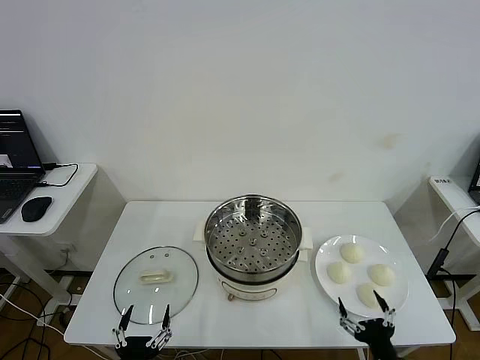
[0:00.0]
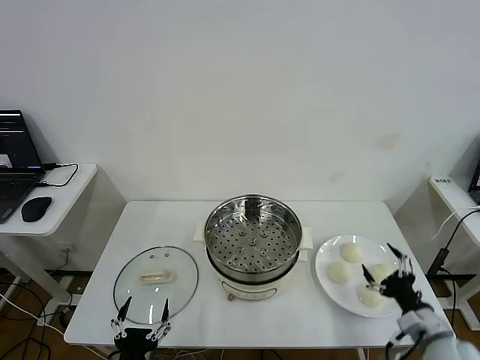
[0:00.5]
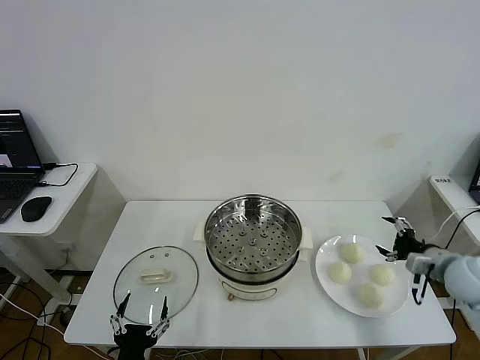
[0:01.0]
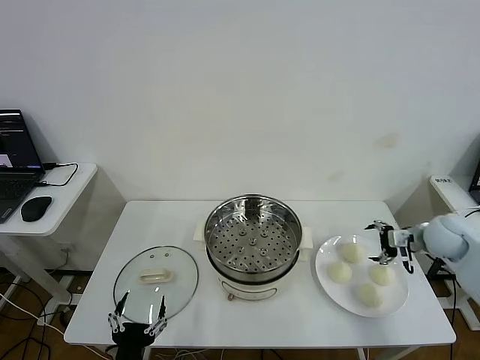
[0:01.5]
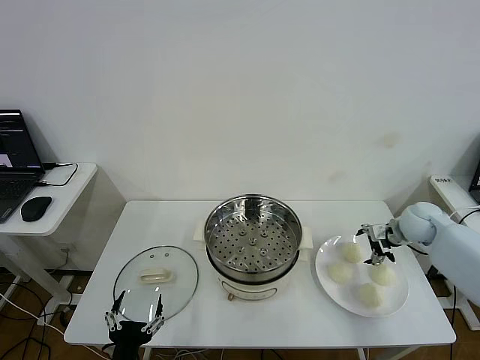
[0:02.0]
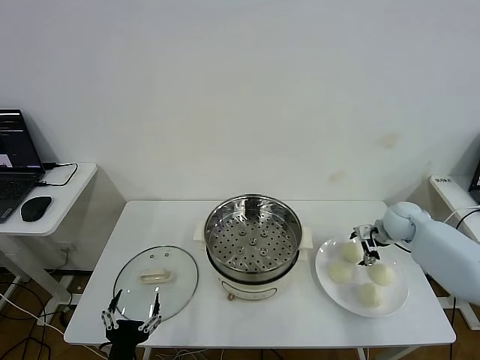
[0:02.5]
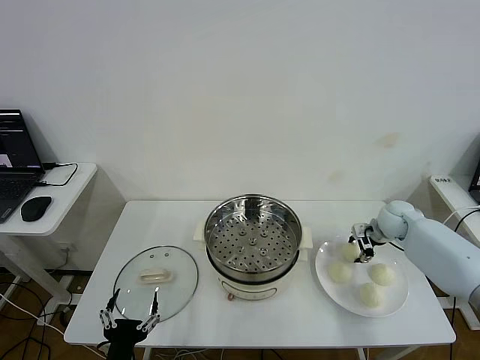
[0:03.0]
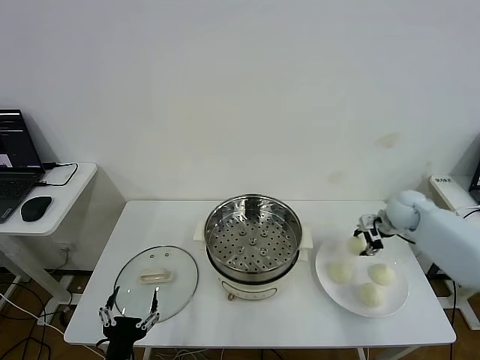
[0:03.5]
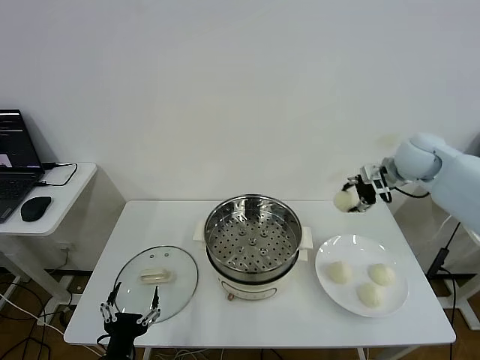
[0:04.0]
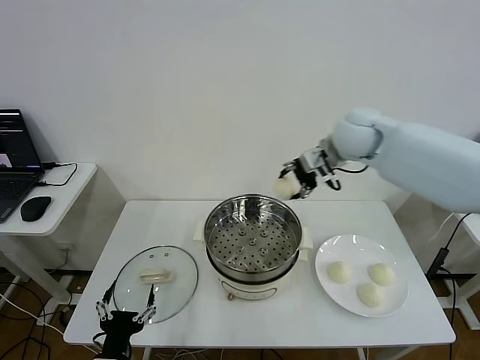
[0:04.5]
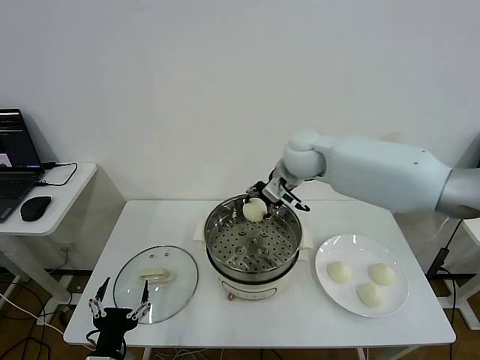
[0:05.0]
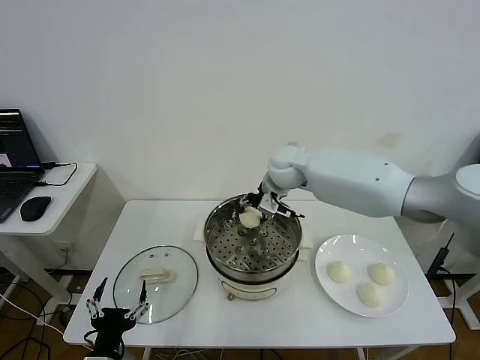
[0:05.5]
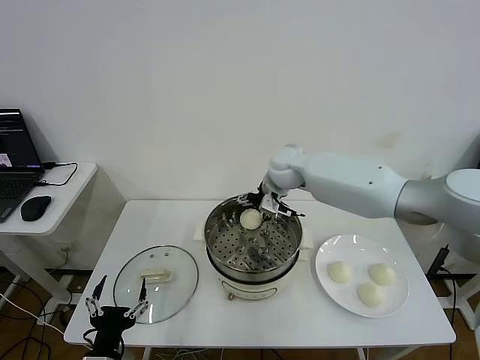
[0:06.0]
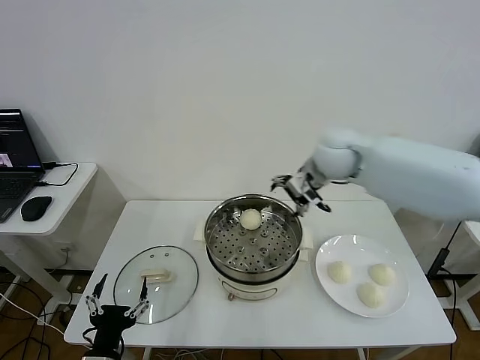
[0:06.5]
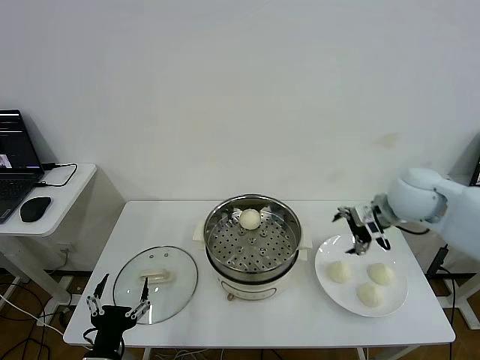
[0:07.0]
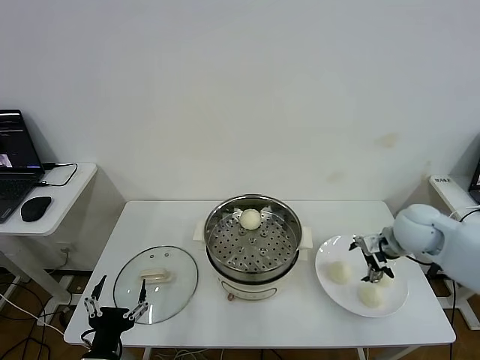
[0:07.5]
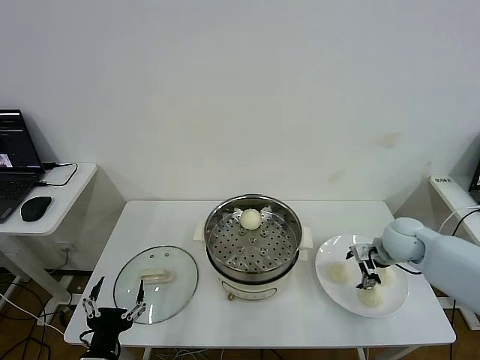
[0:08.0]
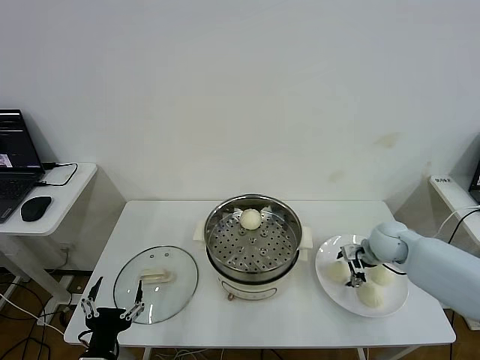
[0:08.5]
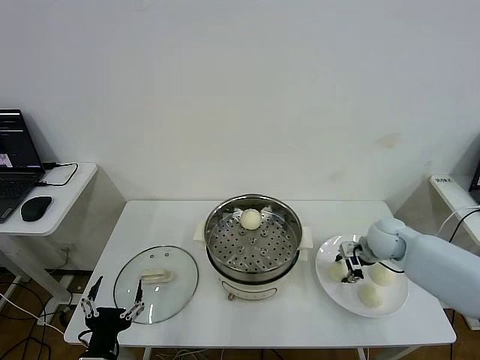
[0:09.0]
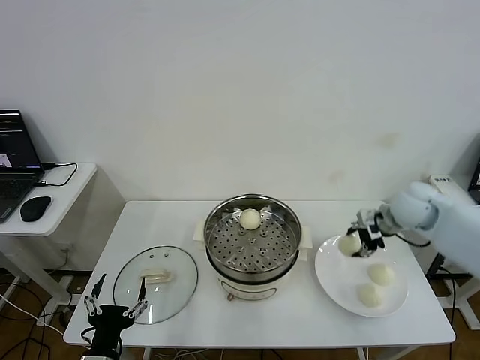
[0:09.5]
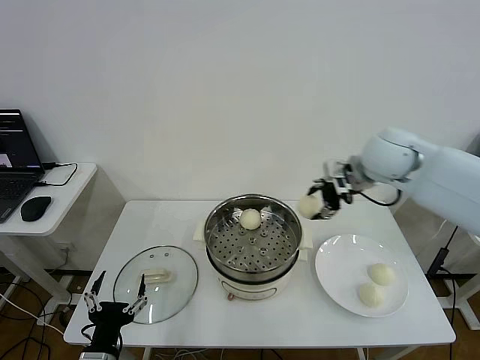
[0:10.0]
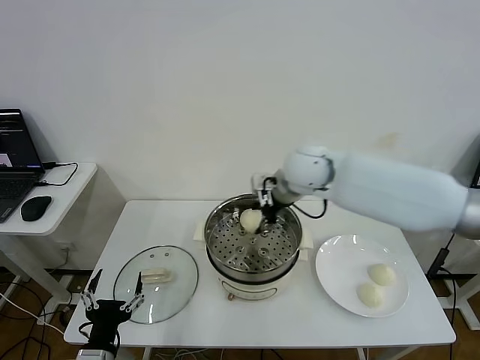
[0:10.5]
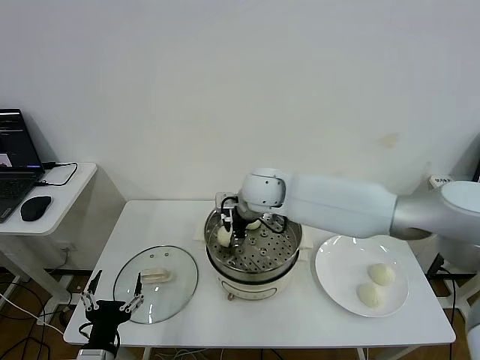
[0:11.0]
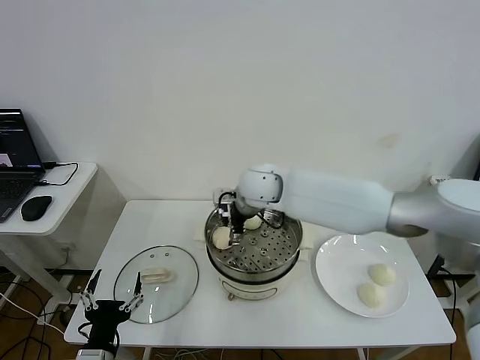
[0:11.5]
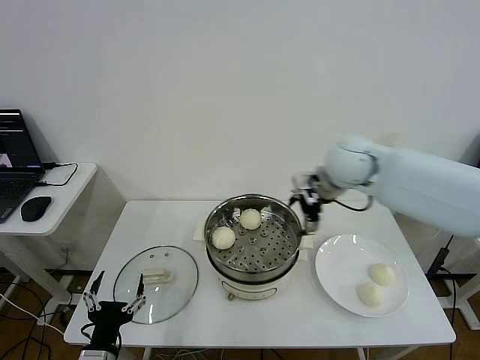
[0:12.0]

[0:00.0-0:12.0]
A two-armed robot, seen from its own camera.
Step, 0:00.0 to 0:03.0: Grasp the baozi in the plate with right gripper.
Step, 0:03.5 to 0:05.5: Place the baozi on the steamer with right gripper.
Step, 0:06.0 to 0:09.0: Grasp the baozi in the plate with right gripper.
Step, 0:09.5 to 0:11.0: Place the baozi on the steamer with right gripper.
0:02.0 to 0:04.0: The right gripper heads upward and to the left, covering about 20 cm, and closes up.
0:04.0 to 0:06.0: The right gripper heads to the left, covering roughly 25 cm, and opens up.
0:06.0 to 0:08.0: The right gripper heads to the right, downward and backward, covering some 30 cm.
0:08.0 to 0:10.0: The right gripper goes approximately 25 cm upward and to the left, and closes up.
0:10.0 to 0:12.0: The right gripper travels to the left and back again, some 20 cm each way, and opens its fingers.

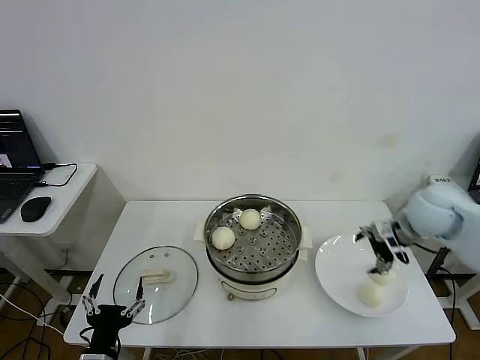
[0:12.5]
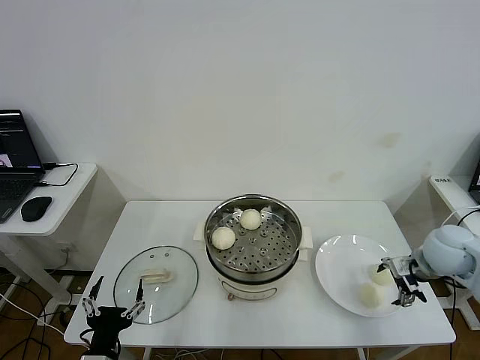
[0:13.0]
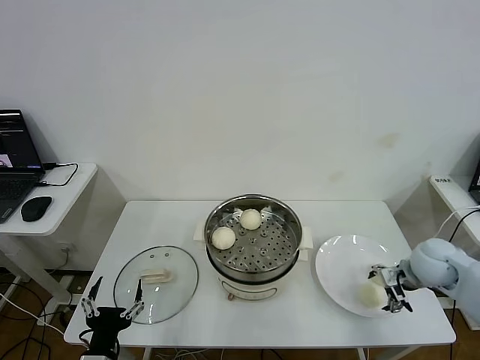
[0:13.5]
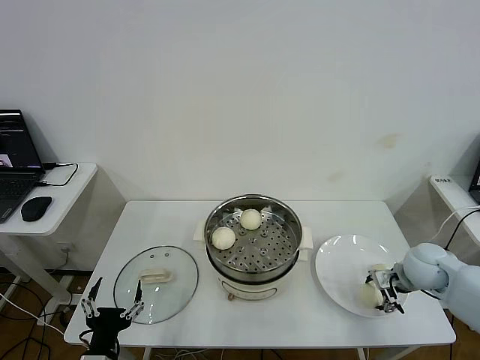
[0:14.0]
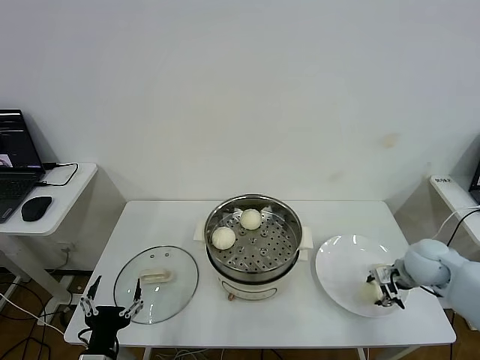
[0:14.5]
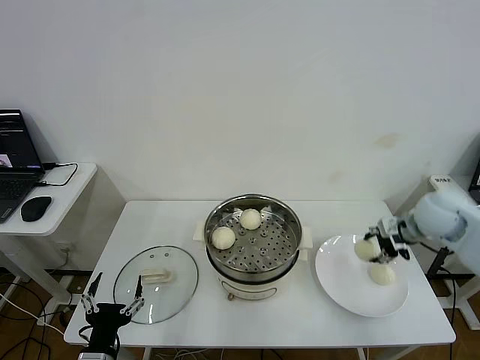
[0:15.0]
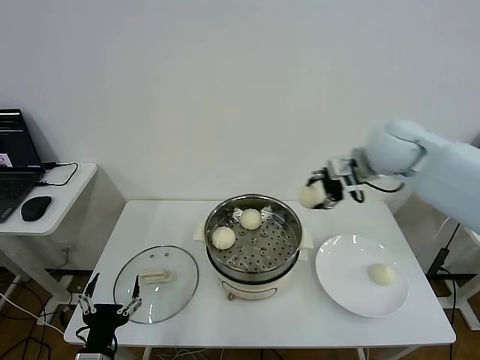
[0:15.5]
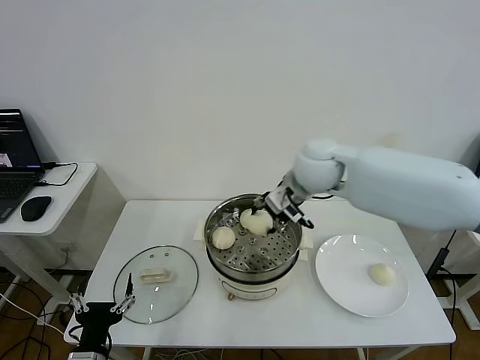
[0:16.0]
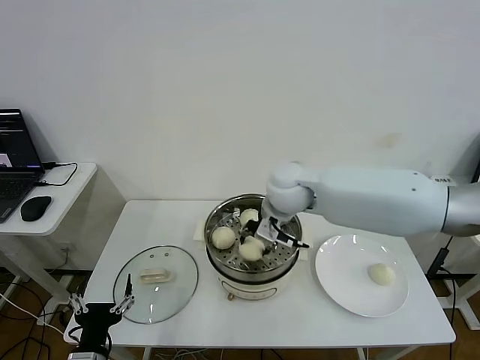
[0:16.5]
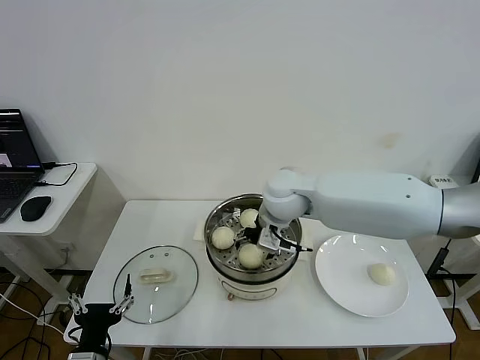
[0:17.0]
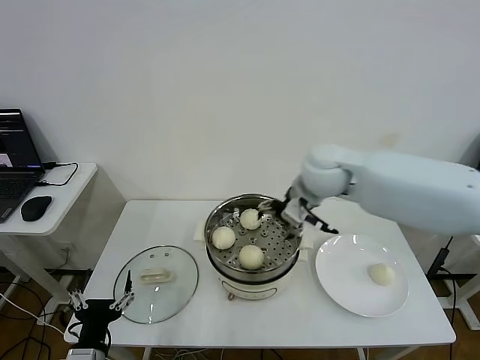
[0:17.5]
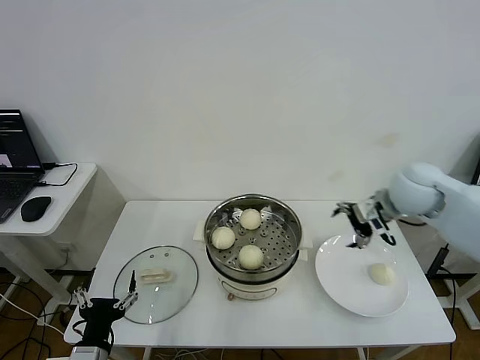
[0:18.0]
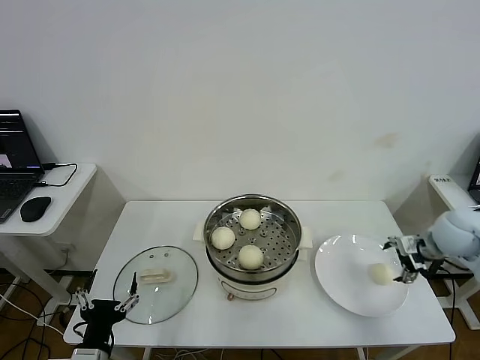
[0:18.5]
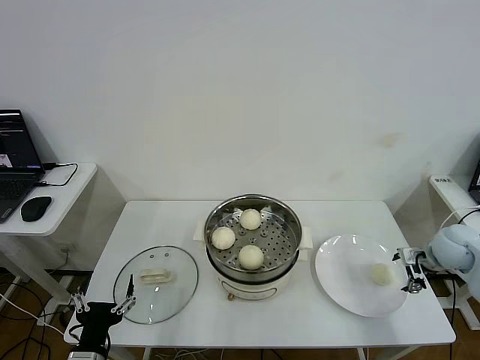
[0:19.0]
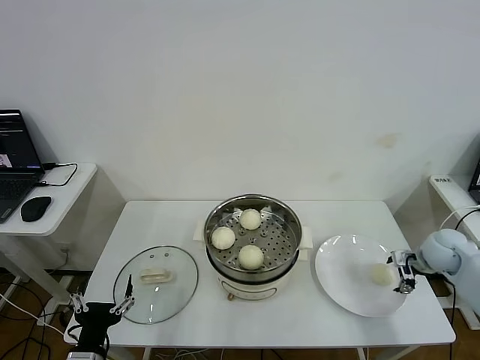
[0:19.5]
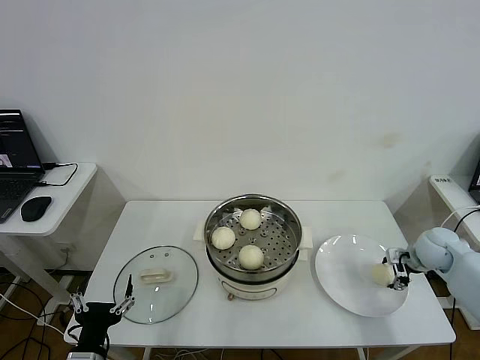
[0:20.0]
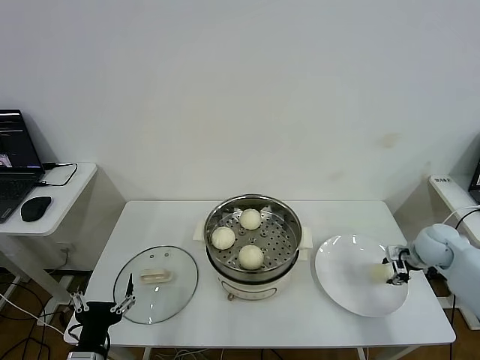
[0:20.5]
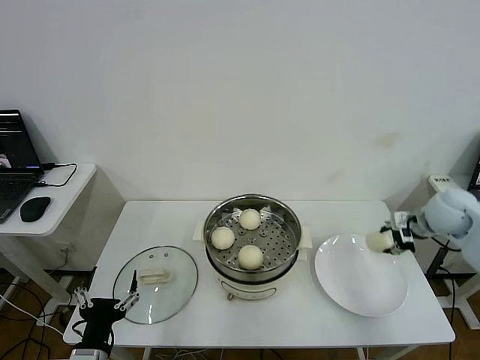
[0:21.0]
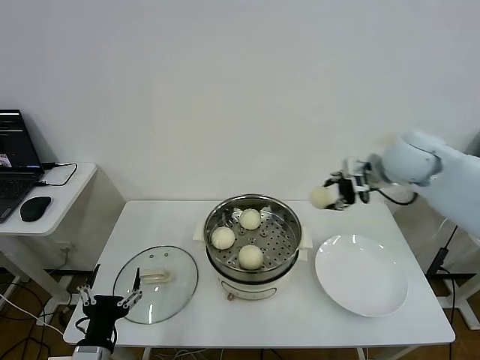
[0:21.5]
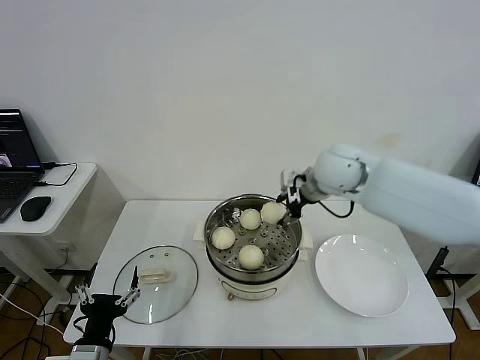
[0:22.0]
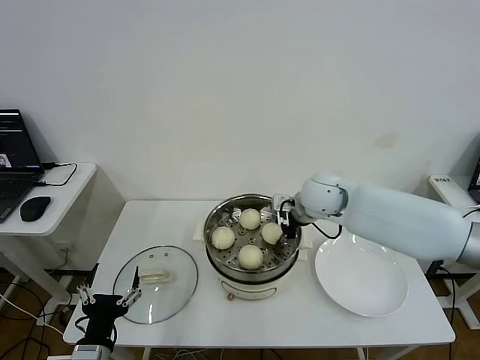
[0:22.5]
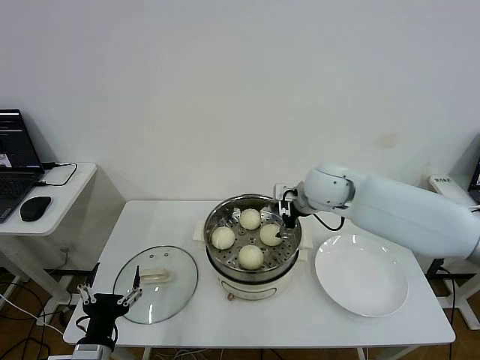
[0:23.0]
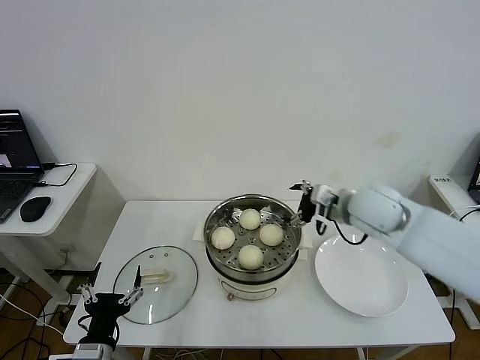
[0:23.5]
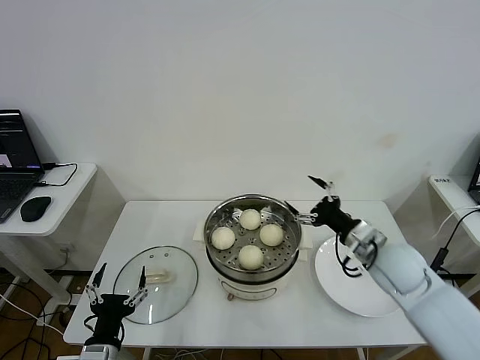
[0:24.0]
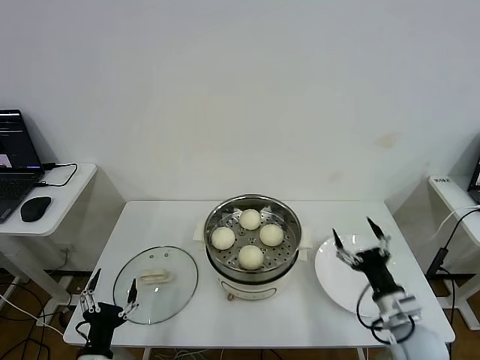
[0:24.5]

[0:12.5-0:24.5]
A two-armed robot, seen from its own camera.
Step, 0:12.5 to 0:14.0: Grasp the baozi in the plate with right gripper.
Step, 0:14.5 to 0:17.0: Place the baozi on the steamer with right gripper.
Step, 0:17.5 to 0:20.0: Grasp the baozi in the plate with right gripper.
Step, 0:20.5 to 0:22.5: Place the baozi on the steamer with right gripper.
0:12.5 to 0:14.5: The right gripper moves downward, roughly 10 cm, and closes its fingers.
0:14.5 to 0:16.5: The right gripper shifts roughly 35 cm to the left and upward.
0:16.5 to 0:18.5: The right gripper travels to the right by roughly 35 cm, and opens.
0:18.5 to 0:20.5: The right gripper shifts roughly 10 cm downward, and closes its fingers.
0:20.5 to 0:22.5: The right gripper shifts roughly 30 cm to the left and upward.
0:22.5 to 0:24.5: The left gripper changes place by roughly 5 cm. The right gripper shifts some 35 cm backward, to the right and downward, and opens.

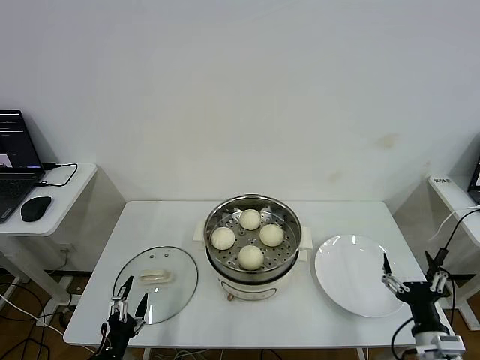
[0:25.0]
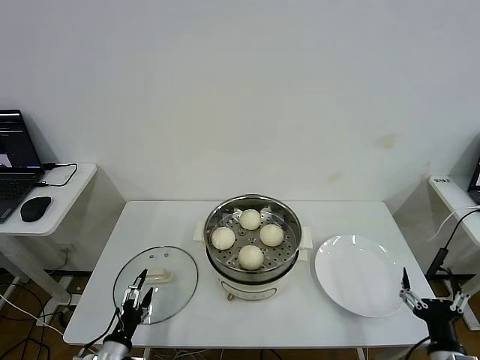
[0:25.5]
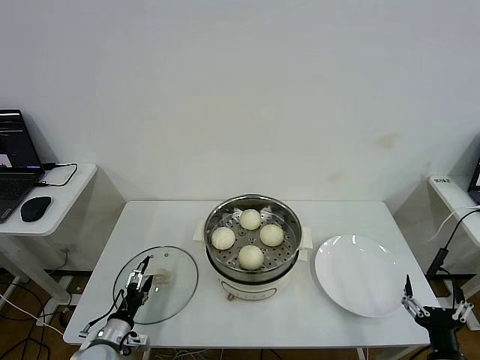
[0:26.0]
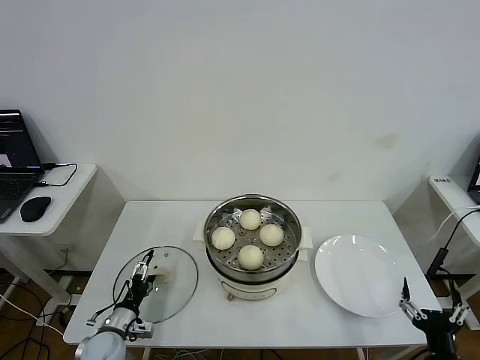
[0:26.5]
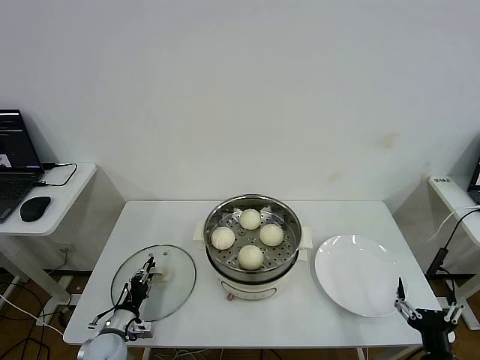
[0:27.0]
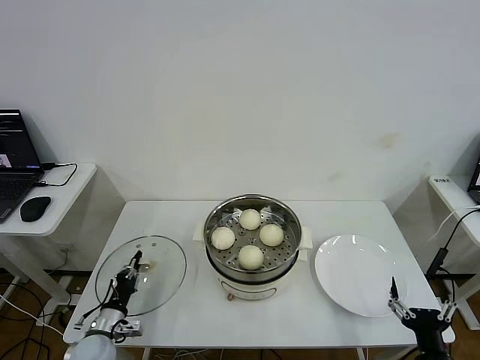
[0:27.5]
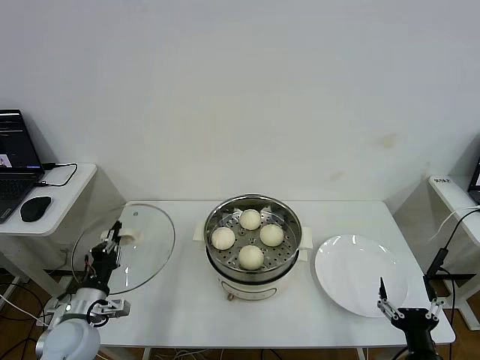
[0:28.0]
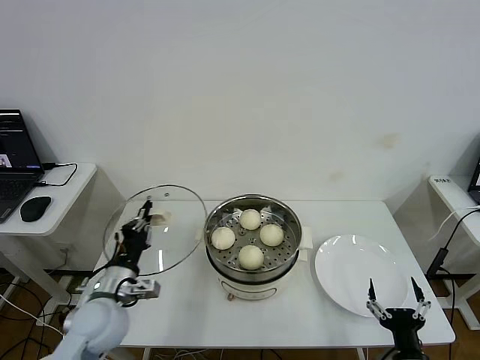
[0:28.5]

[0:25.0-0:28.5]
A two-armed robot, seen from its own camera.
Step, 0:25.0 to 0:27.0: Grasp the pot lid with left gripper.
0:25.0 to 0:27.0: The left gripper heads forward and downward, covering approximately 15 cm, and closes its fingers, while the right gripper heads backward, covering roughly 5 cm.
0:27.0 to 0:28.5: The left gripper travels upward by roughly 20 cm, and closes.
